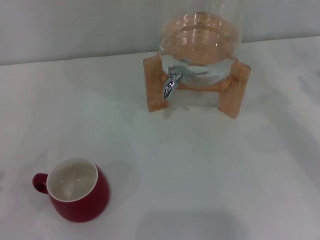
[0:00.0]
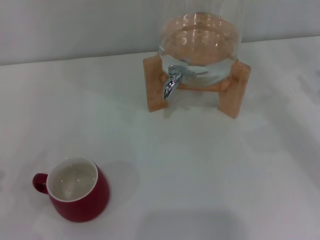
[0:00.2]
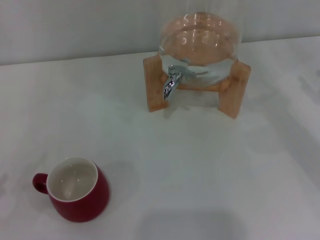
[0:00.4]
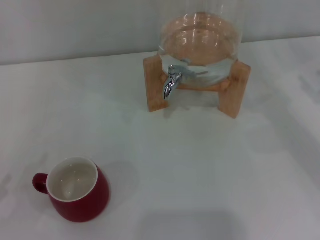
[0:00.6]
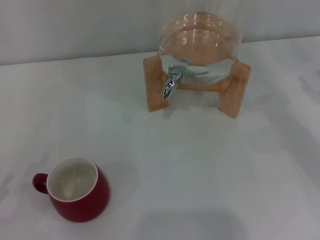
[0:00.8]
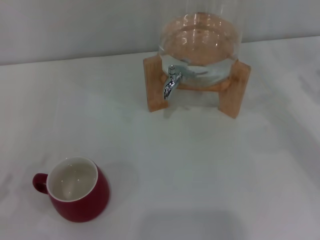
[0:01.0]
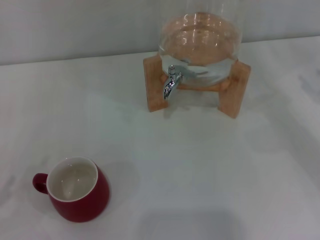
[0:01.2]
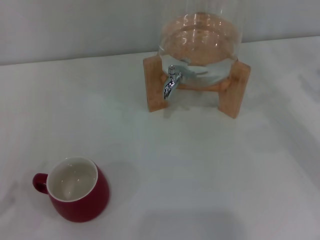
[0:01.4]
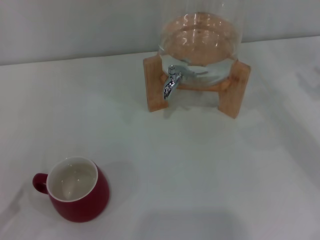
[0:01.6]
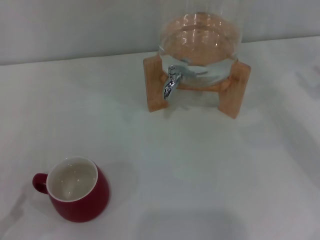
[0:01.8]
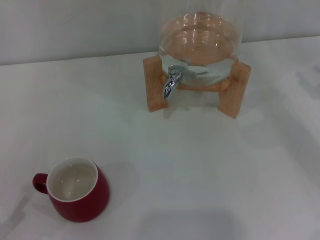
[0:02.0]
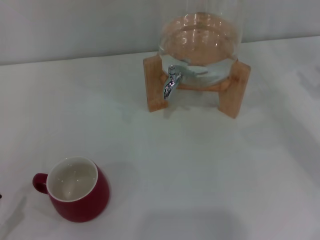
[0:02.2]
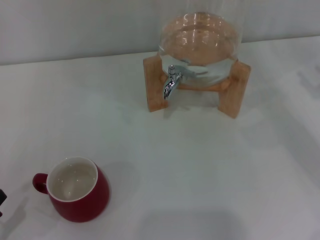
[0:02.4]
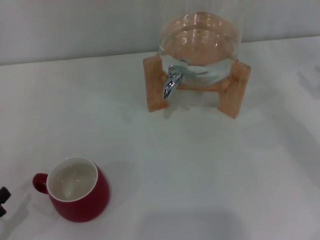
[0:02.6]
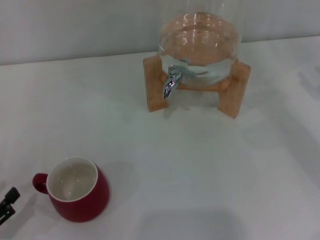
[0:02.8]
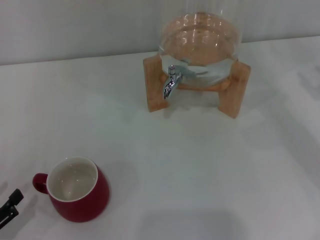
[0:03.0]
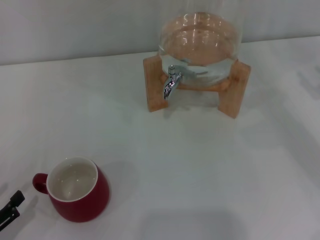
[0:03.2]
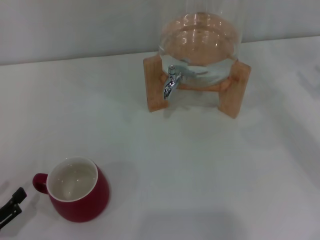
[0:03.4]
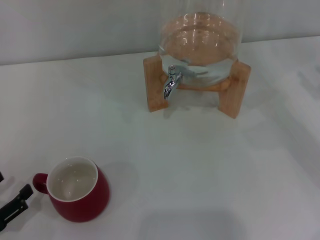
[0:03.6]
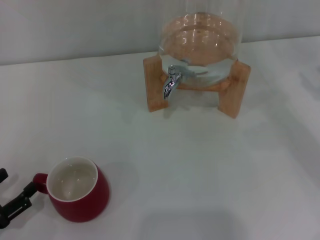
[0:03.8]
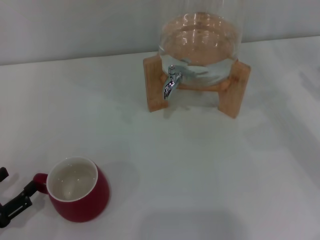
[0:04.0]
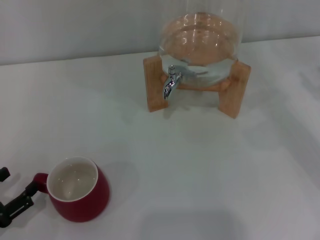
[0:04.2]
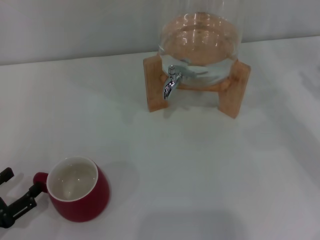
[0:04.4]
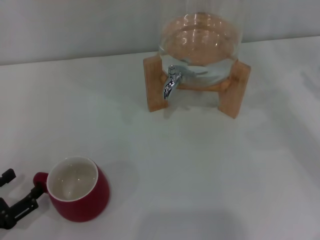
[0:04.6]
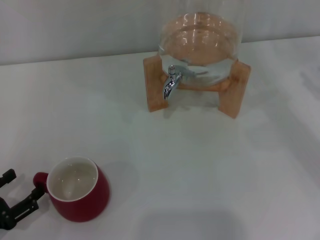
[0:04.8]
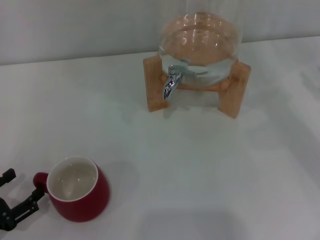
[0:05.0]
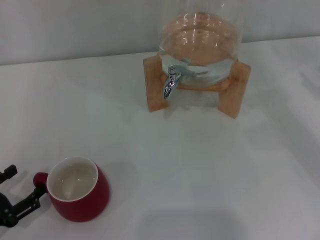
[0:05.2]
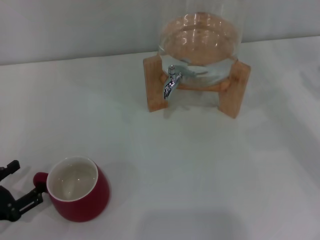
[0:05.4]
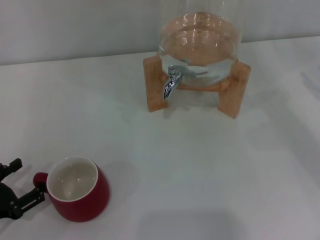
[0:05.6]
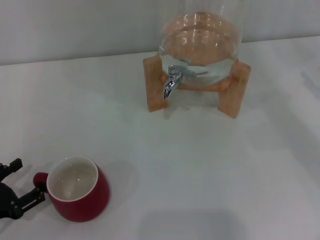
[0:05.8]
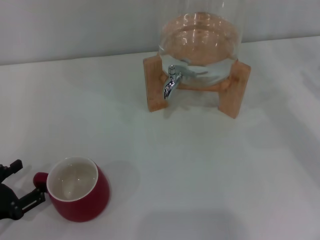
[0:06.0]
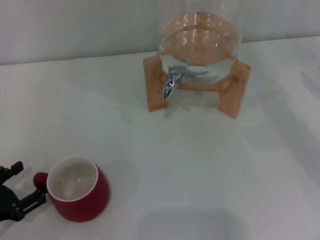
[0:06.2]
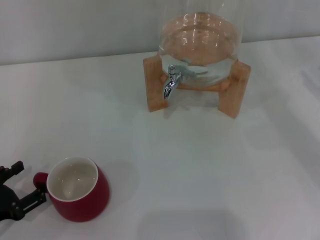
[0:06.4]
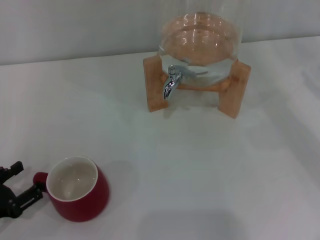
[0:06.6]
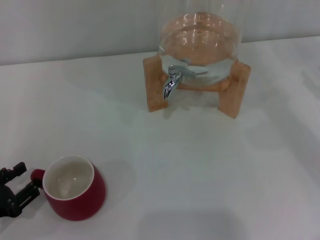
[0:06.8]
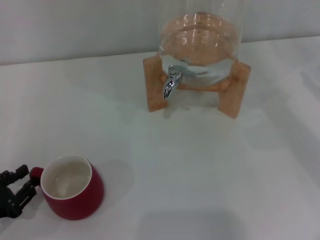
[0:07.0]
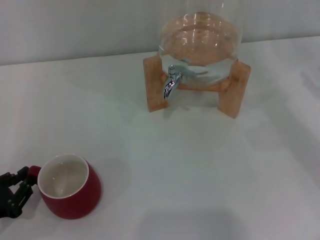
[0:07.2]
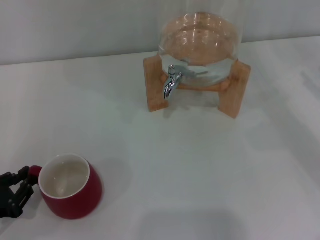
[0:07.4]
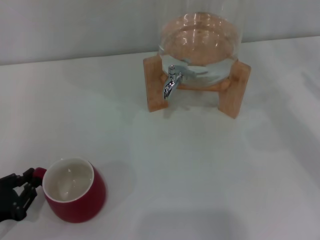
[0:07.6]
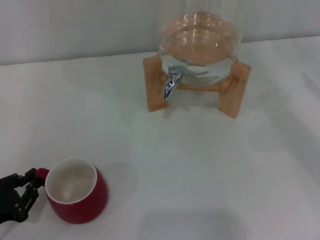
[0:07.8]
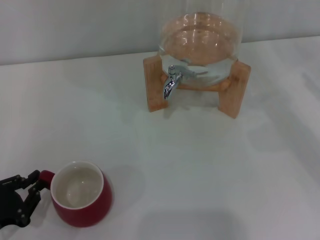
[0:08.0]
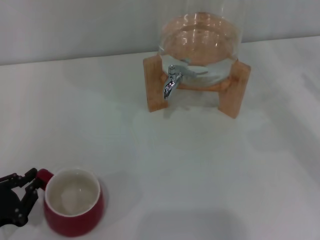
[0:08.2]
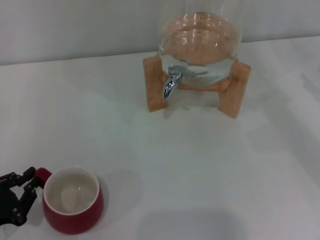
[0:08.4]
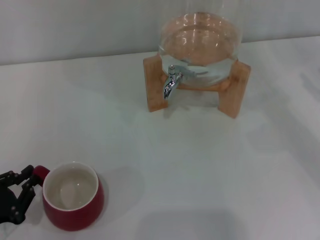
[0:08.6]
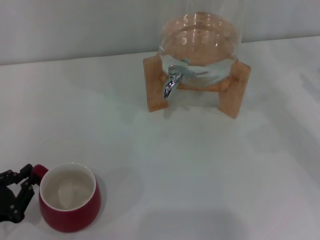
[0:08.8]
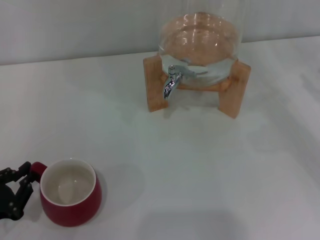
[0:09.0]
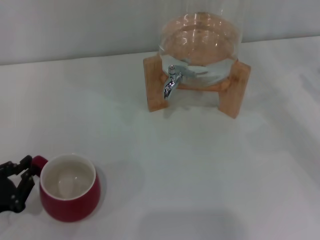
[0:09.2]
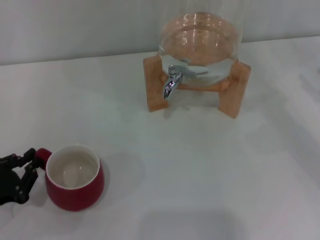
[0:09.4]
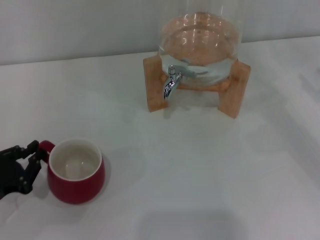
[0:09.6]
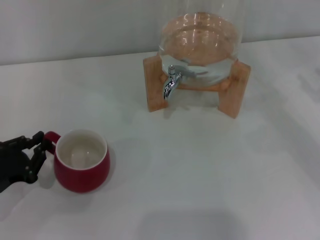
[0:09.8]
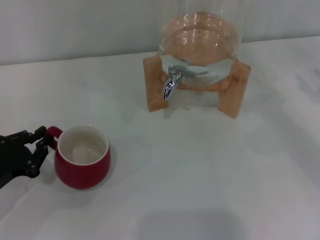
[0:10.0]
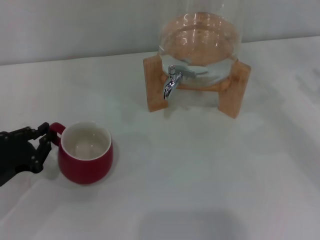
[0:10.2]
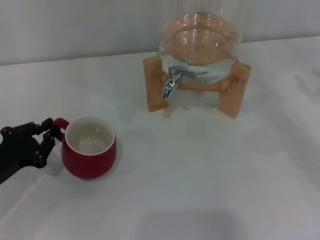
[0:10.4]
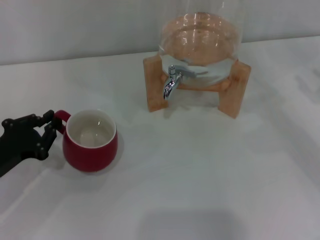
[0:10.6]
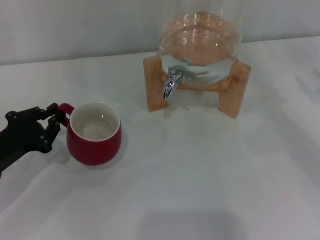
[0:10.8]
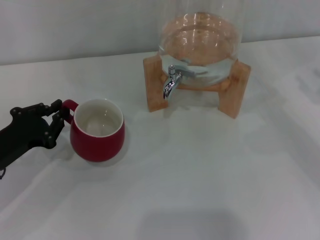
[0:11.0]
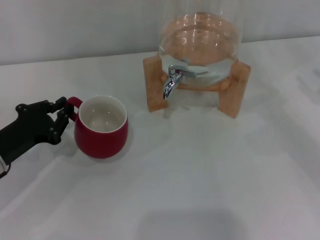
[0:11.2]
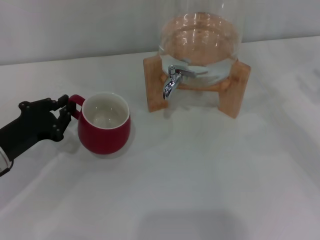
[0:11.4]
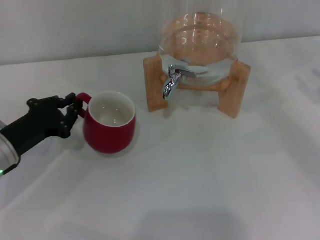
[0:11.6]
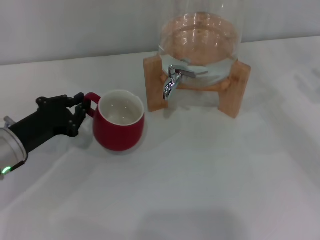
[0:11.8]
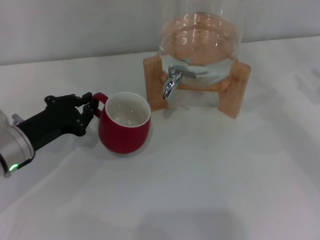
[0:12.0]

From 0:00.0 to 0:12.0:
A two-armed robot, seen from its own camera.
Task of the whole recording: the left gripper pick up the red cup and place it horizontally under the faucet, the right gripper turn on the faucet to fill the cup, and then turn off the faucet.
From 0:01.6 to 0:03.0: There are only small adjustments of the grippers.
From 0:03.0 to 0:06.0: There are only small adjustments of the grippers.
From 0:06.0 to 0:07.6: The left gripper closes its fingers.
From 0:07.6 to 0:09.0: The grippers make only small movements.
From 0:09.0 to 0:10.4: The left gripper moves forward, some 10 cm.
From 0:10.4 to 0:12.0: The left gripper travels to the right and forward by roughly 10 cm.

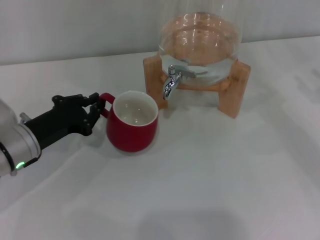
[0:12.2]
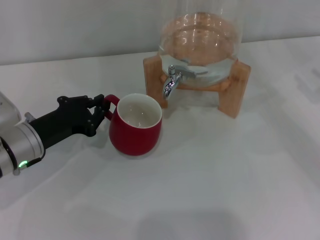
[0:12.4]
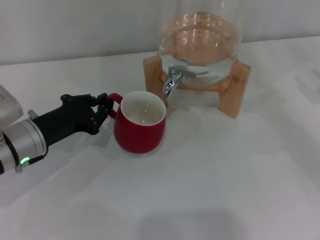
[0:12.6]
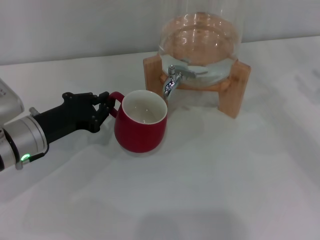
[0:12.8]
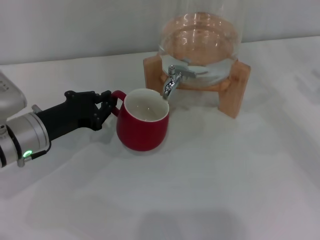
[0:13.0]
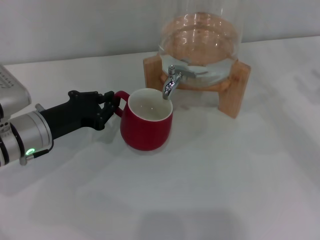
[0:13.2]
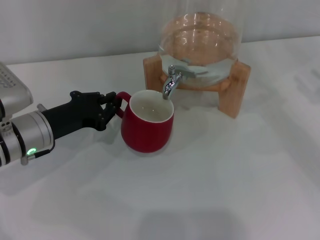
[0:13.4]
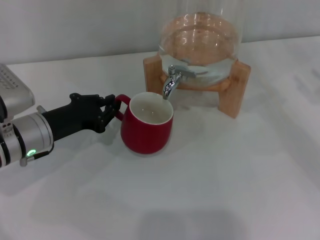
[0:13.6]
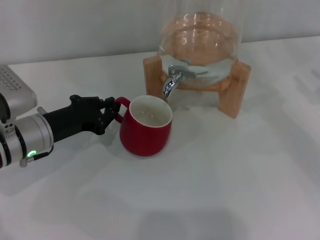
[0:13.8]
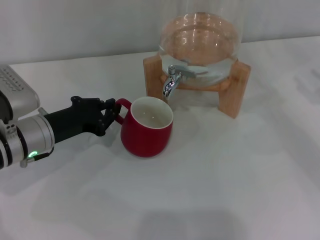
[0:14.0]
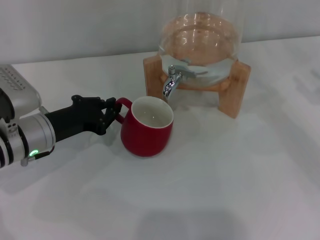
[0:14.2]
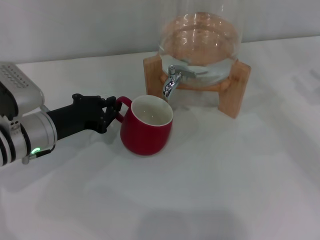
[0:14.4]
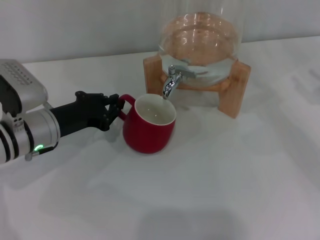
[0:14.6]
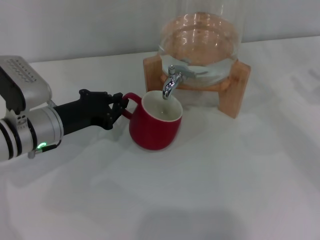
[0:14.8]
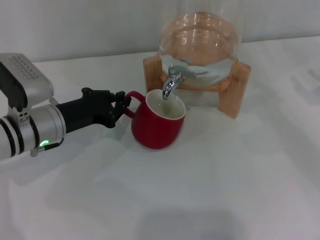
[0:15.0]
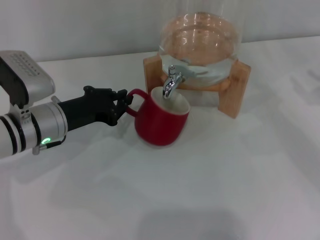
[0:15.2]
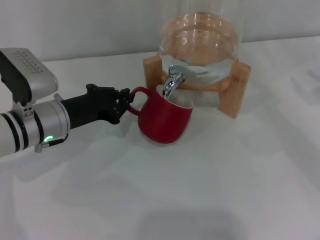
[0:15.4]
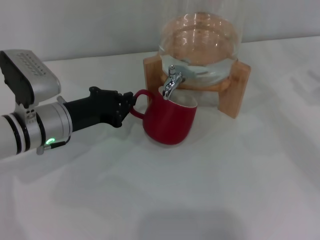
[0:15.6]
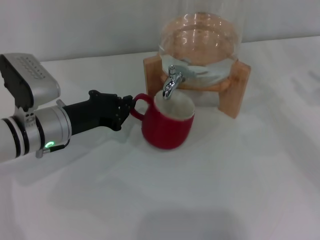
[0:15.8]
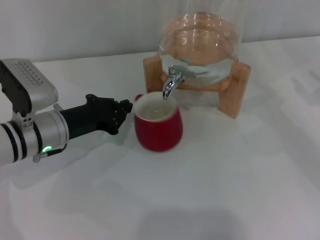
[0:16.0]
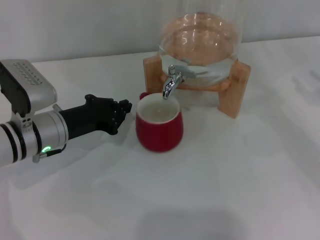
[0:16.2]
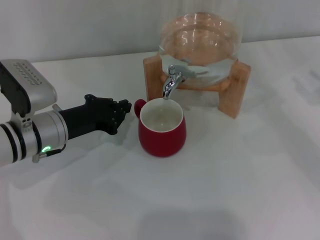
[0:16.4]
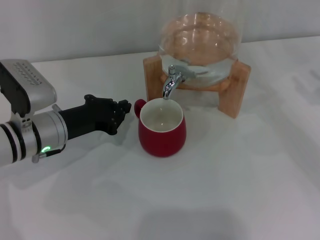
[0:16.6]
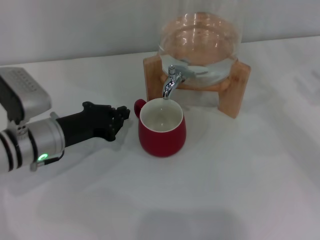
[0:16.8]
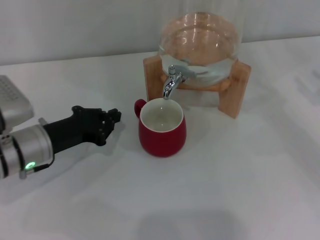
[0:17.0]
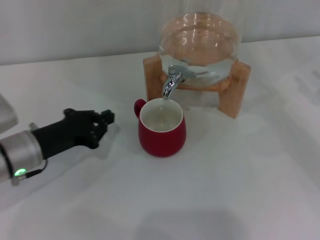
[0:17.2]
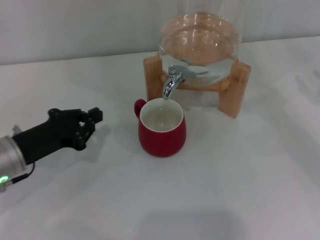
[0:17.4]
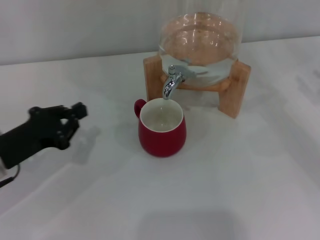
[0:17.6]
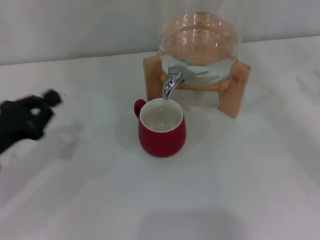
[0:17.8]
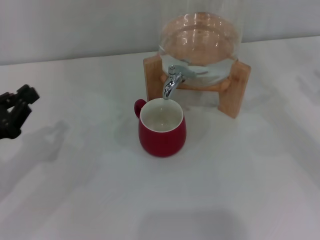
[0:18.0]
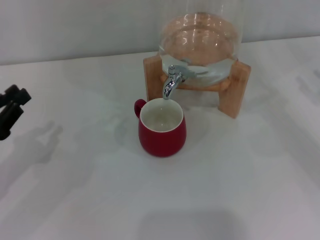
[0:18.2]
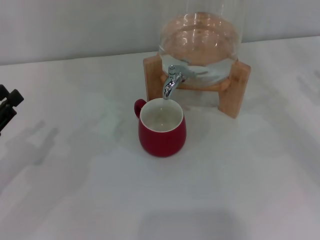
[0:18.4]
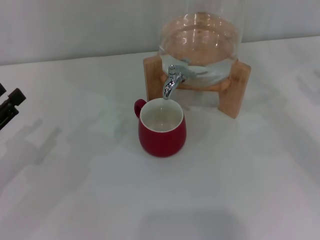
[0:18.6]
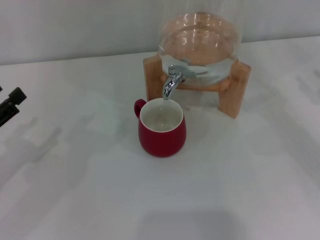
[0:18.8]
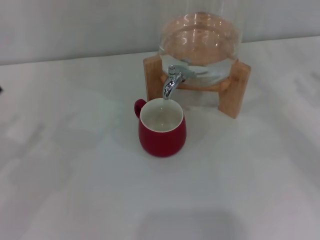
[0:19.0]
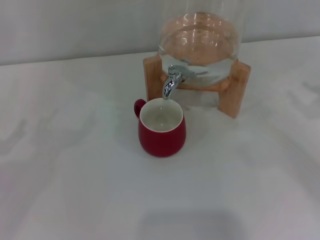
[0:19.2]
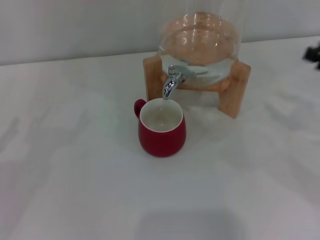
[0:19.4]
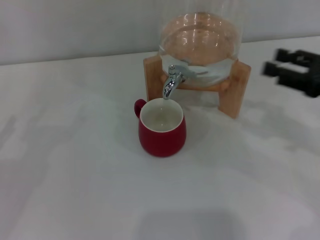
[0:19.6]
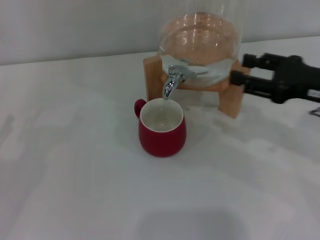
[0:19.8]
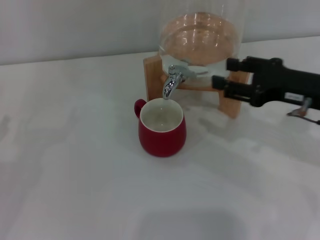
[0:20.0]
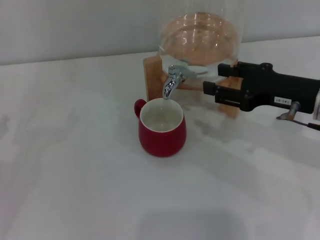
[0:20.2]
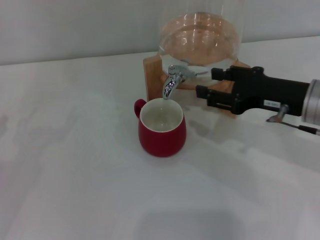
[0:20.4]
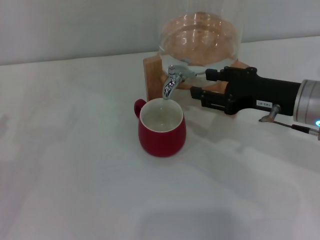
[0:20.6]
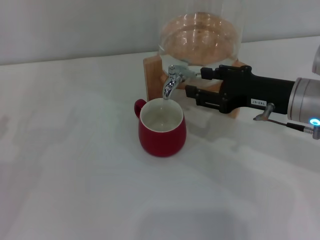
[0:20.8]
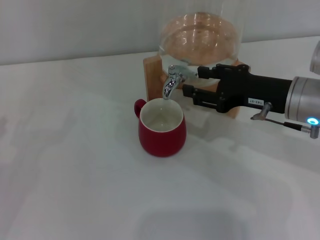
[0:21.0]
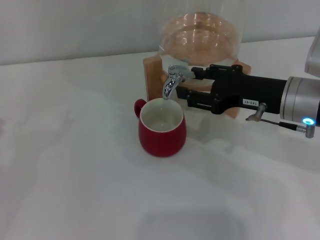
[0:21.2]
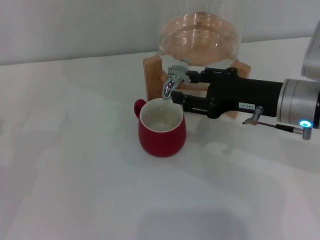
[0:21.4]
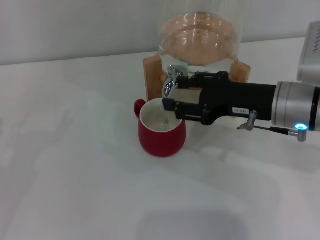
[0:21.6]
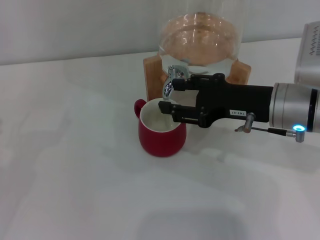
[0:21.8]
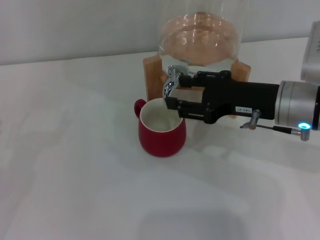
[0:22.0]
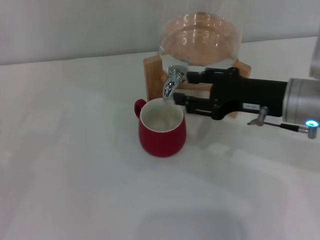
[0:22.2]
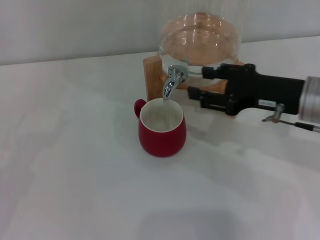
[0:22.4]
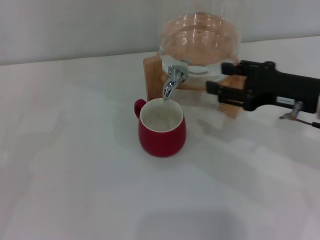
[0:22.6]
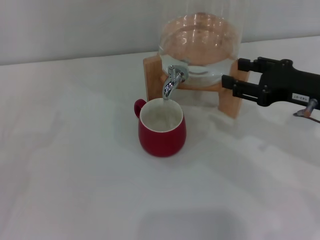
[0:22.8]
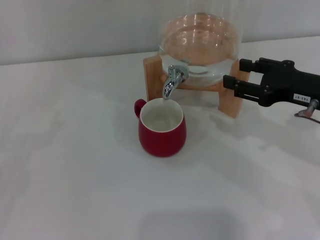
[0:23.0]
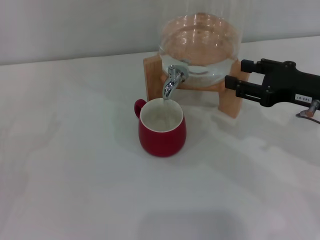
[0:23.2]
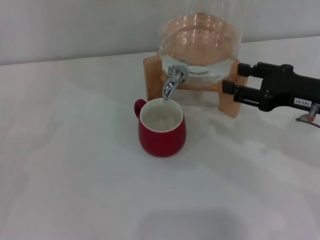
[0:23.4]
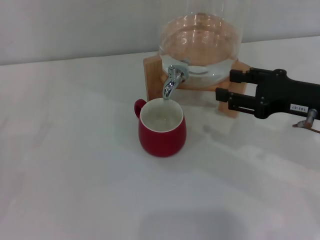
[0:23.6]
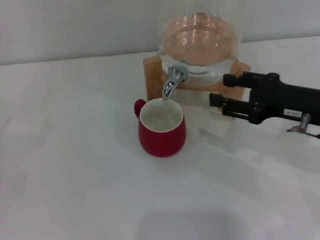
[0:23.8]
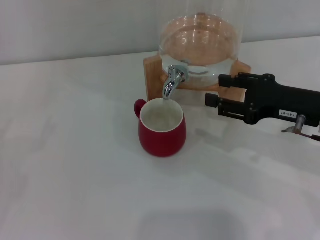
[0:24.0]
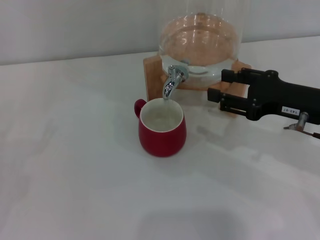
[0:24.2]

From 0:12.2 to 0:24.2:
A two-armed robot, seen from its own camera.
Task of the whole recording: the left gripper pick up the red cup and place it horizontally under the faucet, the right gripper turn on the faucet to fill the cup, and then turn off the faucet.
Step, from 0:12.2 to 0:16.6: Move the cup beneath the water dispenser nozzle with the left gripper.
Step, from 0:16.8 to 0:21.8: Open the dispenser valve and fill the cup with water with the right gripper.
From 0:12.2 to 0:15.2: The grippers stay close to where they were, moving slightly.
From 0:15.2 to 0:16.6: Both grippers stay put.
From 0:16.6 to 0:18.2: The left gripper is displaced to the left and backward by roughly 15 cm.
From 0:18.2 to 0:19.8: The left gripper is displaced to the left by some 5 cm, and opens. Meanwhile the right gripper heads to the left, covering some 10 cm.
From 0:19.8 to 0:21.2: The right gripper moves to the left, about 5 cm.
From 0:21.2 to 0:22.6: There are only small adjustments of the grippers.
From 0:22.6 to 0:24.2: The grippers stay close to where they were, moving slightly.
